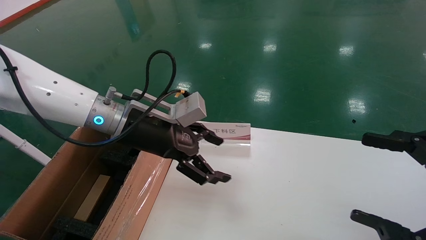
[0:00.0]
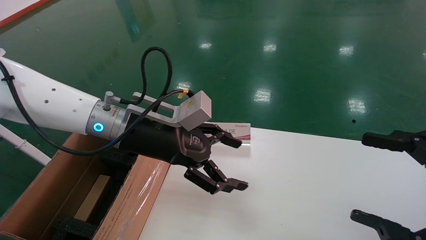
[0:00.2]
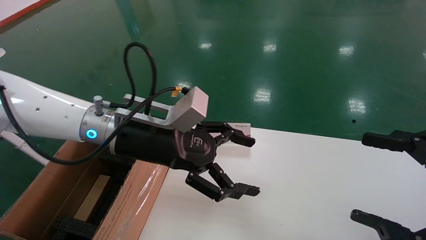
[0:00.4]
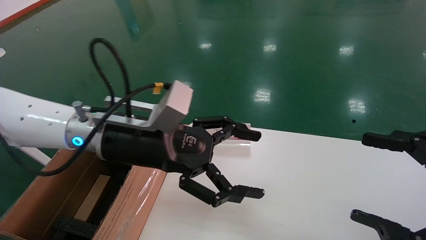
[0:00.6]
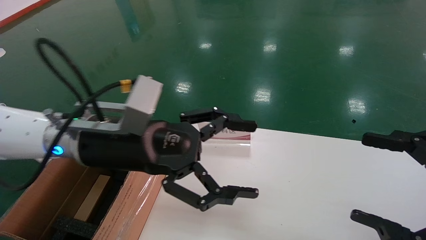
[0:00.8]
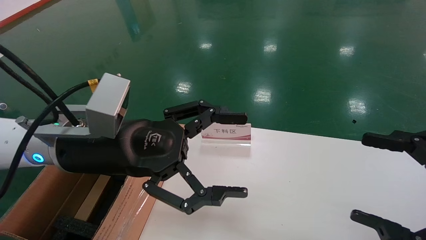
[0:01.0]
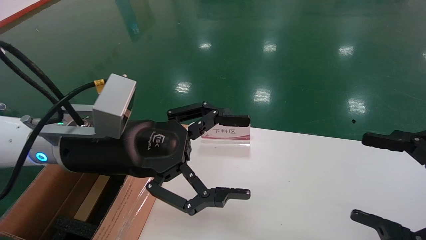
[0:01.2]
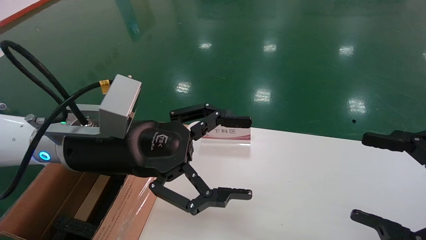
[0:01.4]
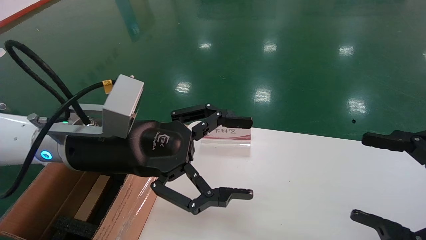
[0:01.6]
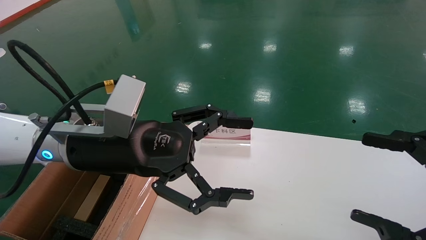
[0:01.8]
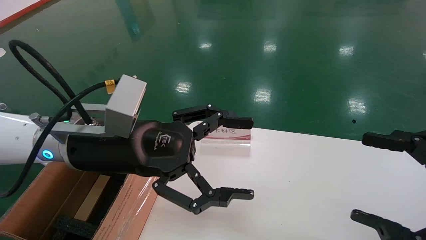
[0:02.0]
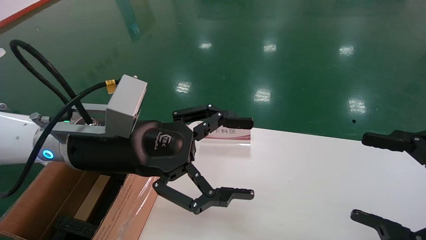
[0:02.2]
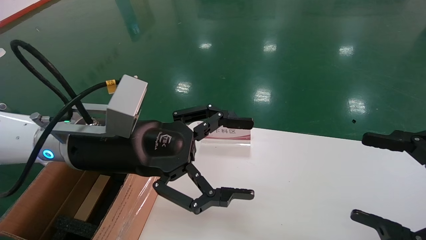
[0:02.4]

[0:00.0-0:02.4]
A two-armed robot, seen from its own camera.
Task of the whole recording: pick up the small cardboard box and load it into the large cardboard box.
0:00.0 to 0:01.2: The left gripper travels backward by approximately 10 cm.
0:01.2 to 0:02.4: Both grippers stay put.
